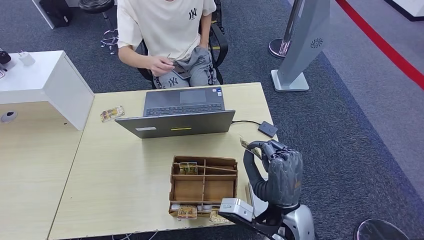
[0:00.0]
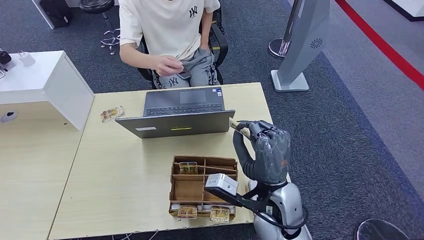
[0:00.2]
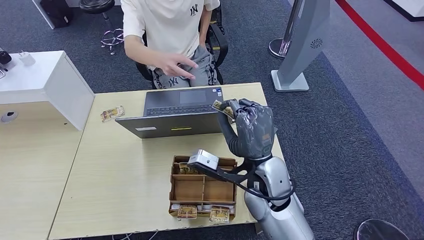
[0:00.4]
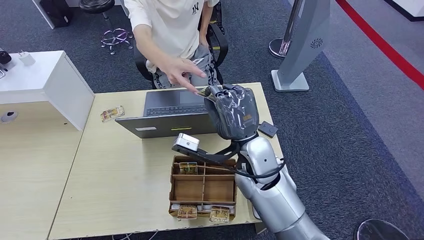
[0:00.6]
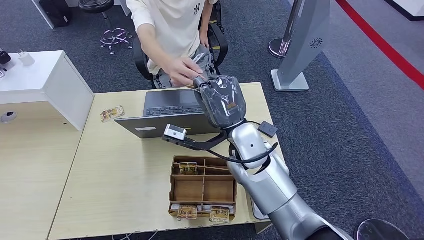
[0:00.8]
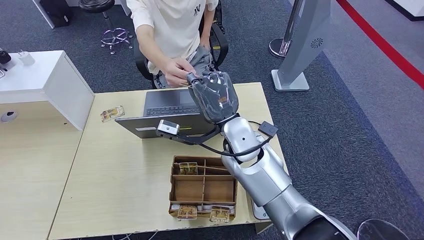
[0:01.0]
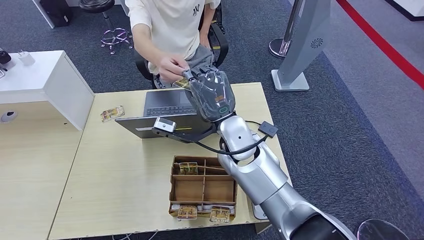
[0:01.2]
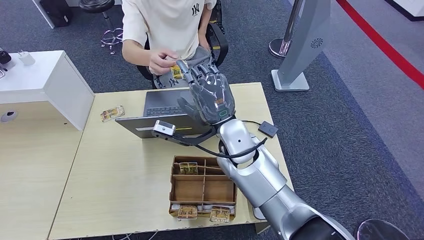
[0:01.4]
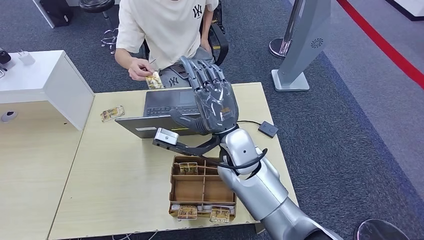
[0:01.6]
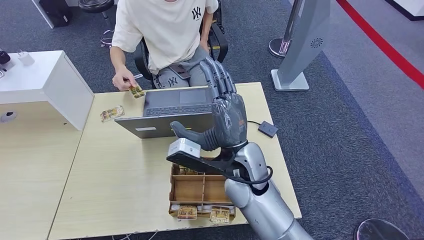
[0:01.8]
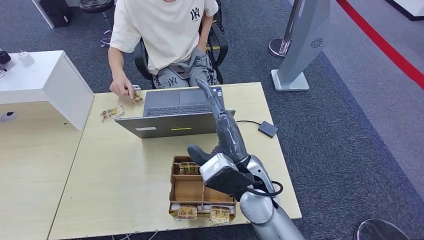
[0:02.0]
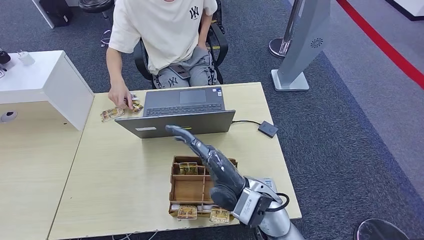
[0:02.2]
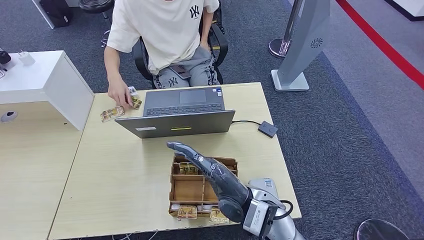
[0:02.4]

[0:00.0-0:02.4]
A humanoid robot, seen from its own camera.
Step, 0:00.0 to 0:02.4: Hand the room key to the person.
0:00.0 to 0:01.2: The right hand shifts roughly 20 cm forward, to the left and upward.
0:01.2 to 0:02.4: The right hand travels backward and downward by about 15 cm.
